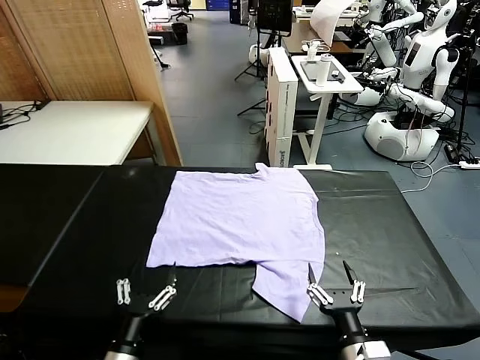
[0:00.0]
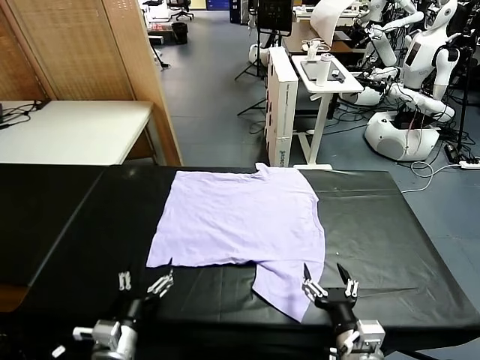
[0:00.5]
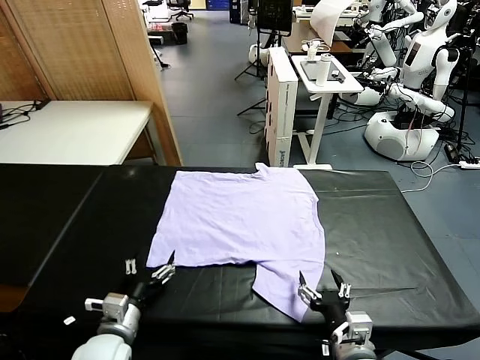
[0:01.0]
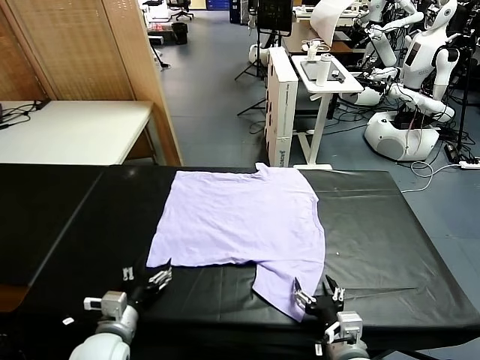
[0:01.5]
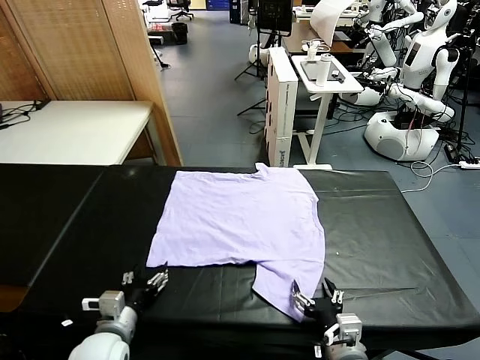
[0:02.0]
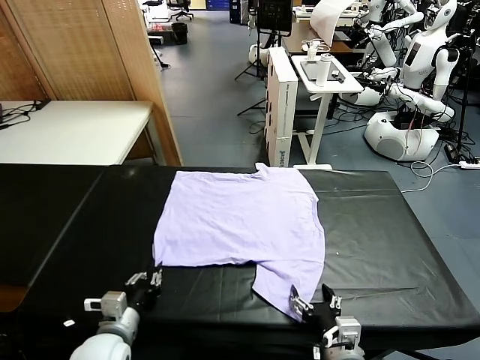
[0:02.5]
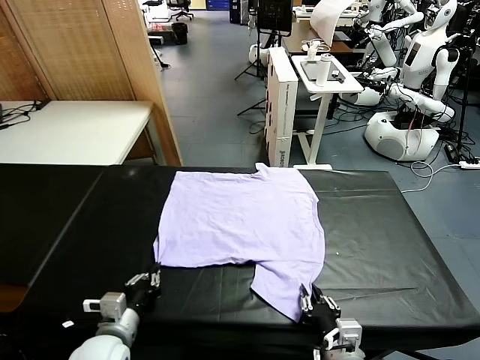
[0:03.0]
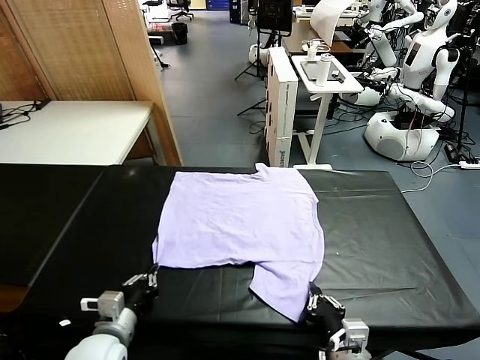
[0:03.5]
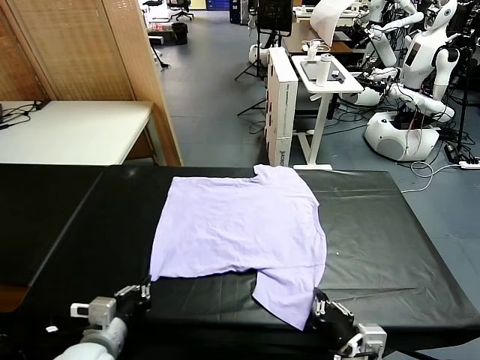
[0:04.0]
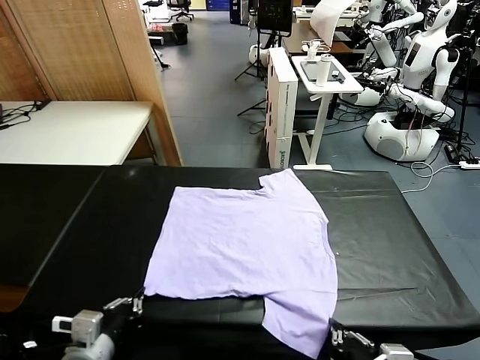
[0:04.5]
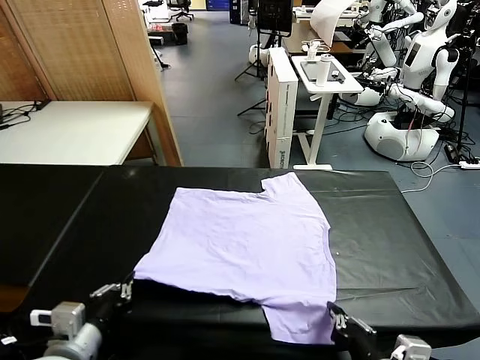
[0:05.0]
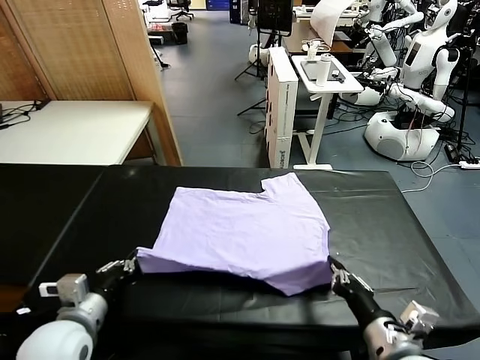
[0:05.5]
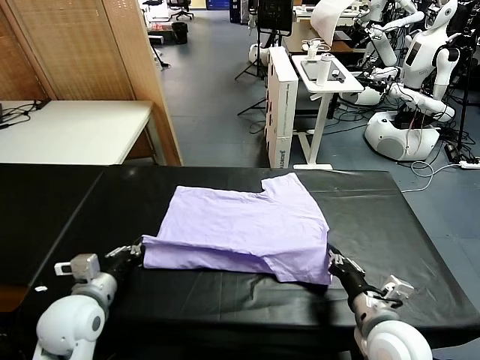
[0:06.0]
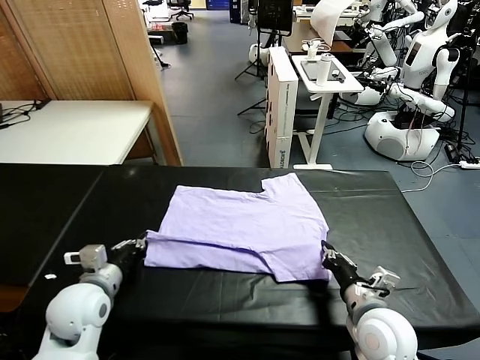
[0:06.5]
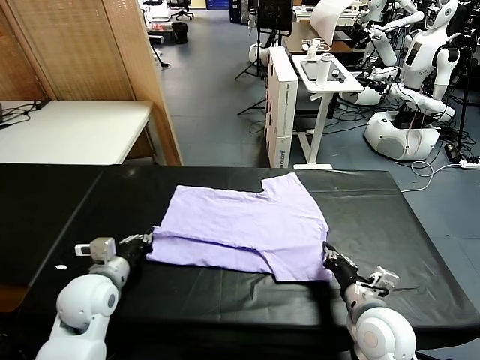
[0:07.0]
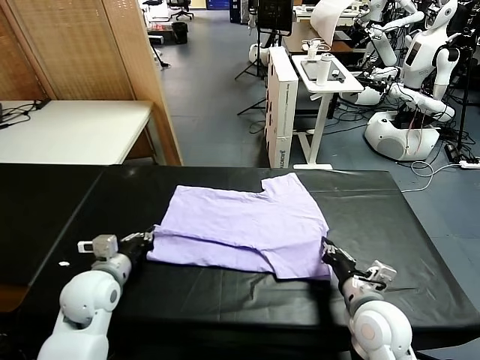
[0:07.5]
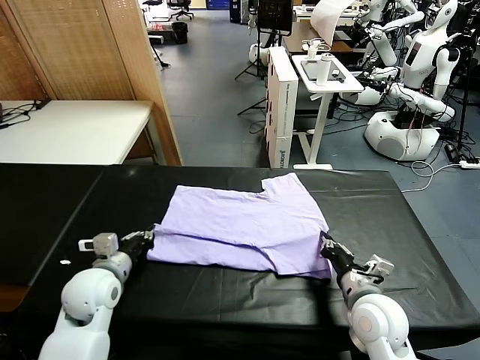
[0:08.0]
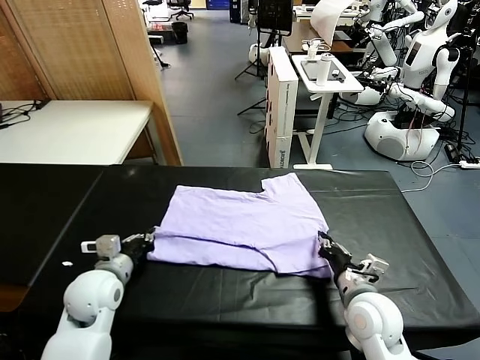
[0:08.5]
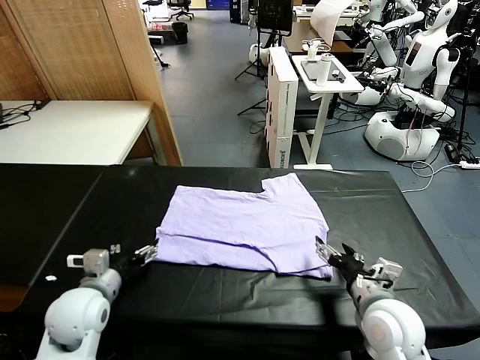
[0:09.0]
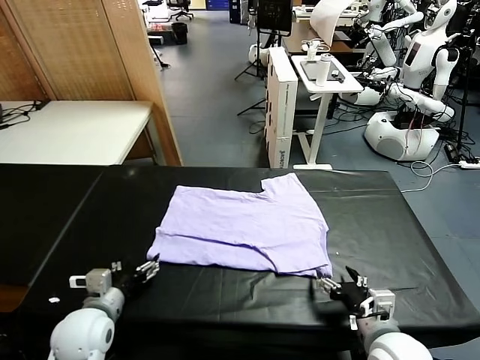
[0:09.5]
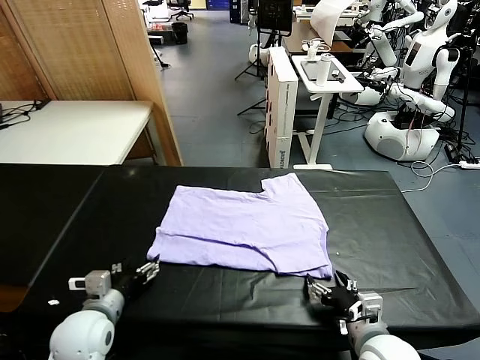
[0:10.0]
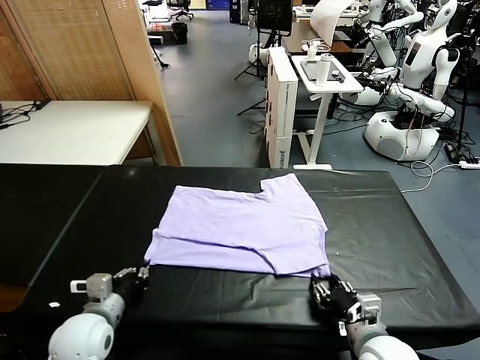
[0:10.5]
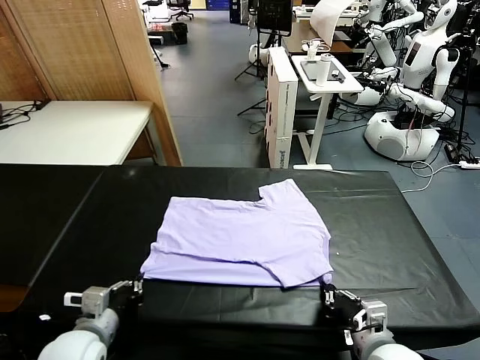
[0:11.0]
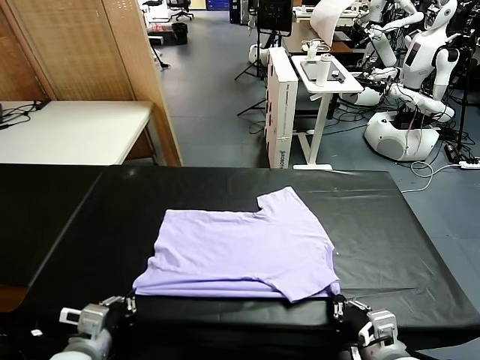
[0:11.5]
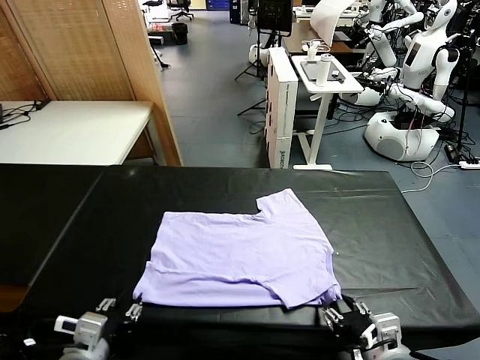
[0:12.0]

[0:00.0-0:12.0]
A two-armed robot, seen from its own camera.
Task of the whole recording: fold and organize the clothes.
Step, 0:00.0 to 0:04.0: use both grippers simultaneously to clamp the lower edge of the clothing fabric.
Step, 0:04.5 to 0:09.0: use both grippers to drag the lower edge of the fabric forward and fold it over the upper edge.
0:02.0 to 0:04.0: The right gripper goes some 5 cm upward, and closes, while the left gripper changes place by roughly 5 cm, and closes up.
0:04.0 to 0:06.0: The left gripper is displaced forward by approximately 10 cm; the right gripper travels forward by about 10 cm.
0:06.0 to 0:08.0: The left gripper shifts about 5 cm forward.
0:08.0 to 0:10.0: The grippers both shift backward by some 5 cm. The right gripper opens. Meanwhile the left gripper opens its fingers.
0:10.0 to 0:12.0: The right gripper travels upward and backward by roughly 10 cm, and closes, then opens again, while the left gripper travels backward by approximately 10 cm, and closes, then reopens.

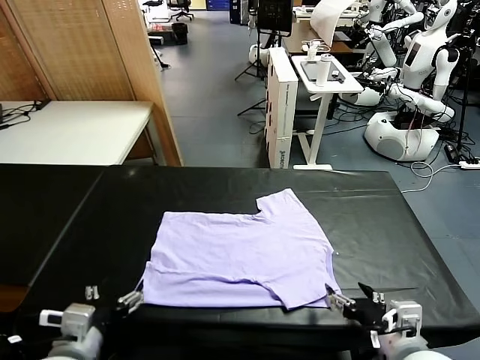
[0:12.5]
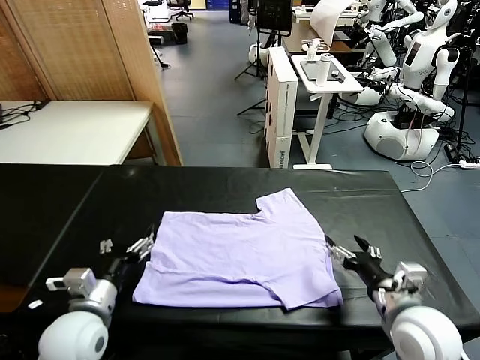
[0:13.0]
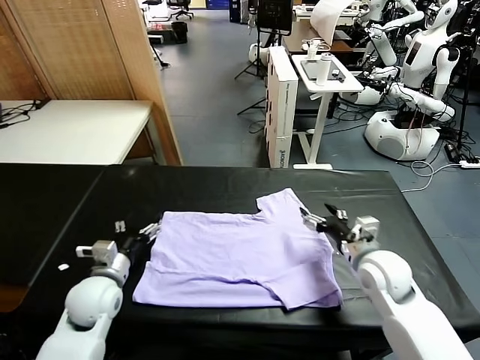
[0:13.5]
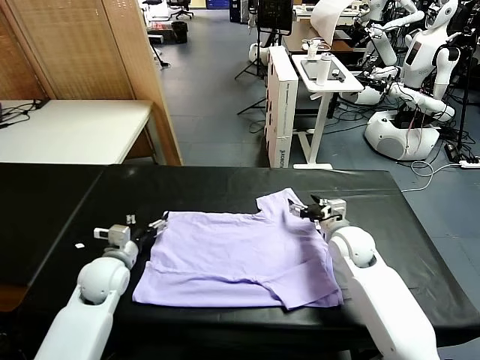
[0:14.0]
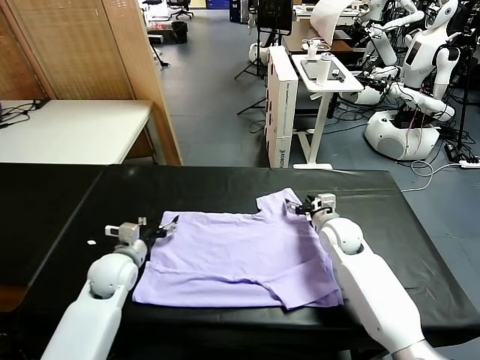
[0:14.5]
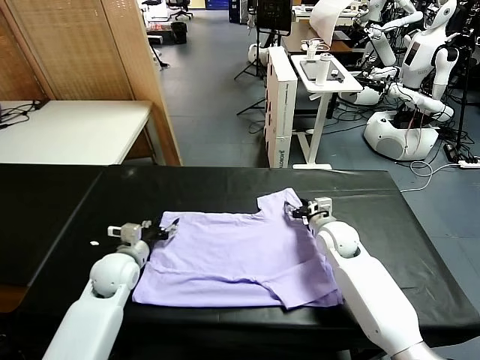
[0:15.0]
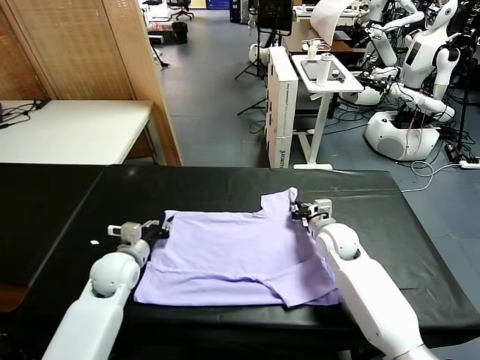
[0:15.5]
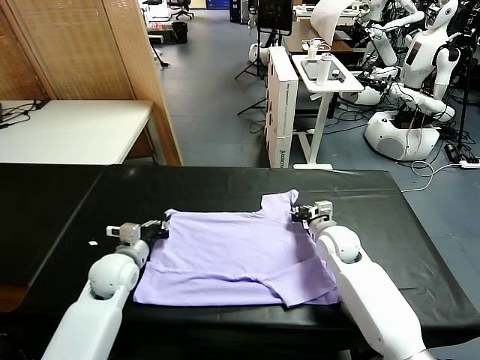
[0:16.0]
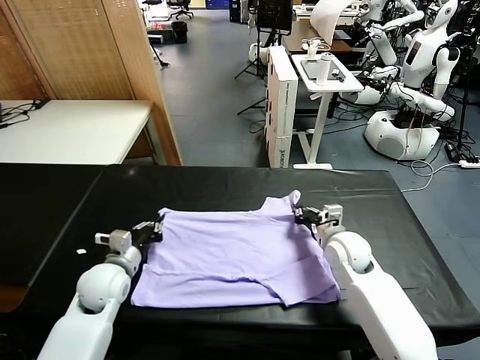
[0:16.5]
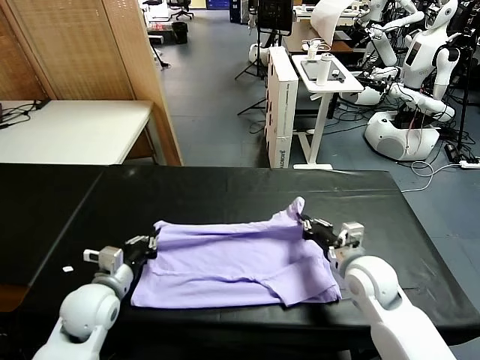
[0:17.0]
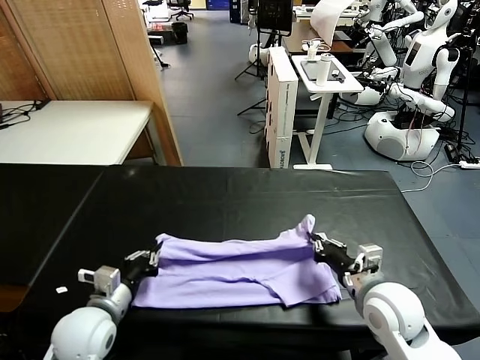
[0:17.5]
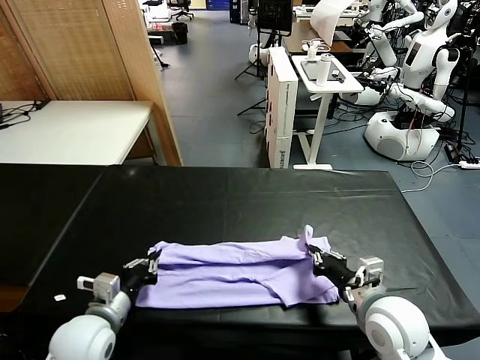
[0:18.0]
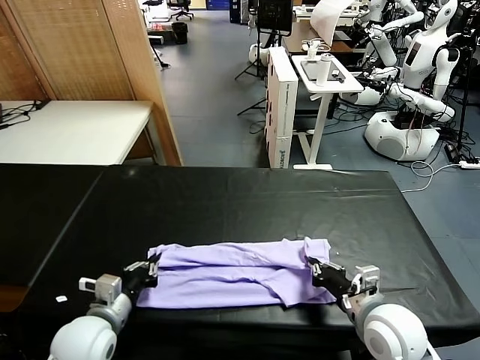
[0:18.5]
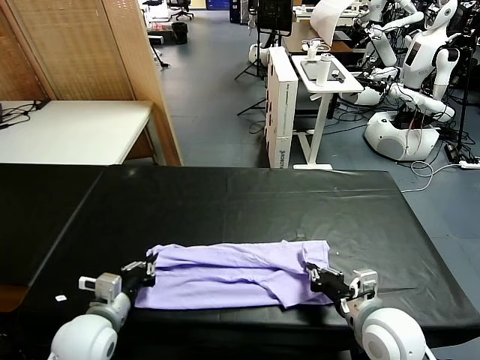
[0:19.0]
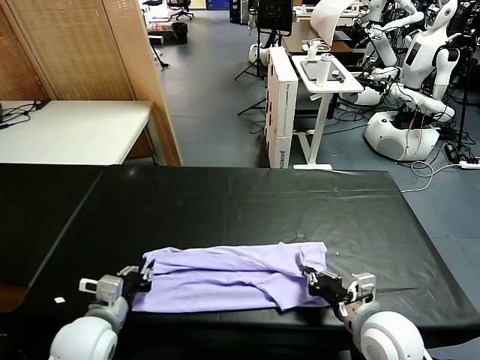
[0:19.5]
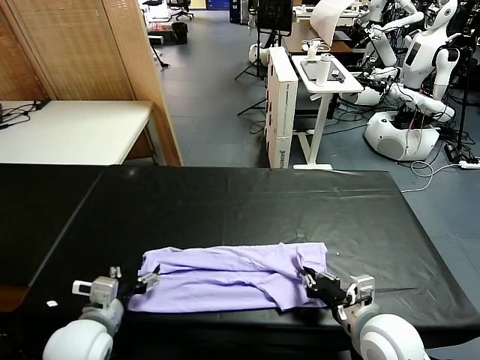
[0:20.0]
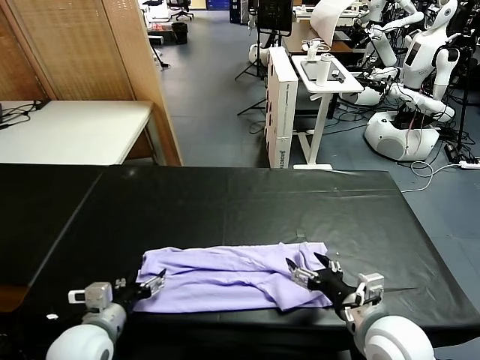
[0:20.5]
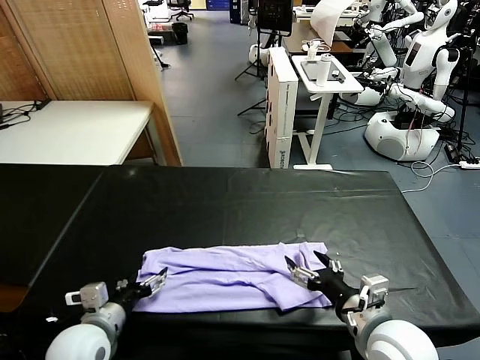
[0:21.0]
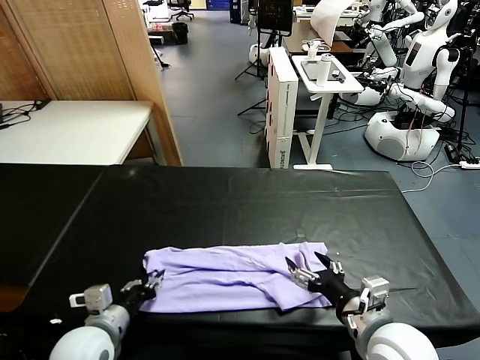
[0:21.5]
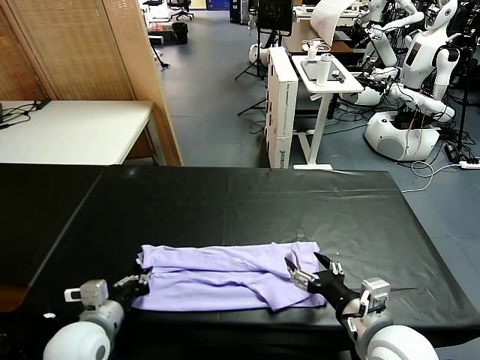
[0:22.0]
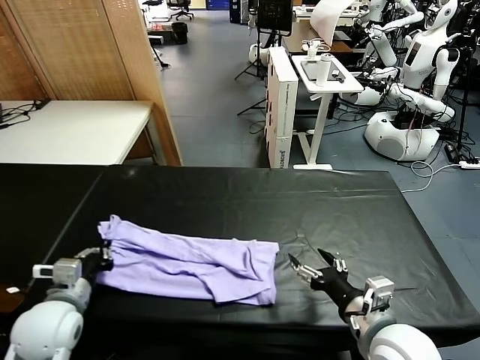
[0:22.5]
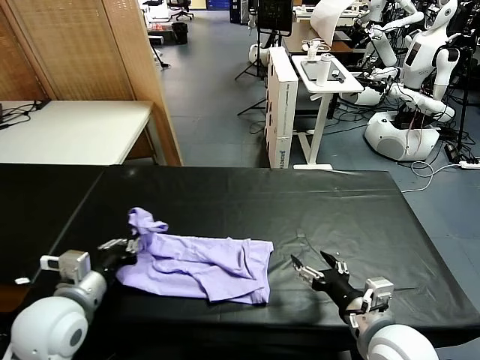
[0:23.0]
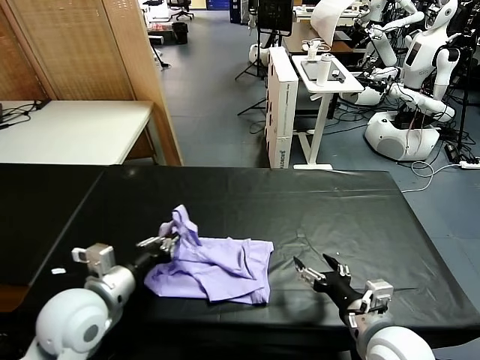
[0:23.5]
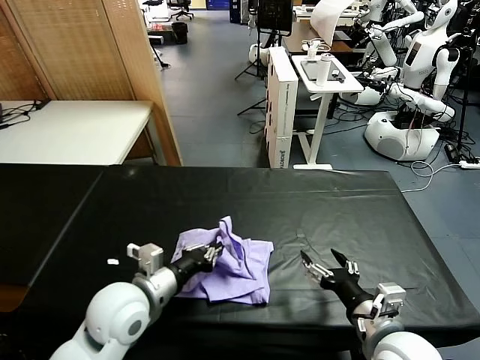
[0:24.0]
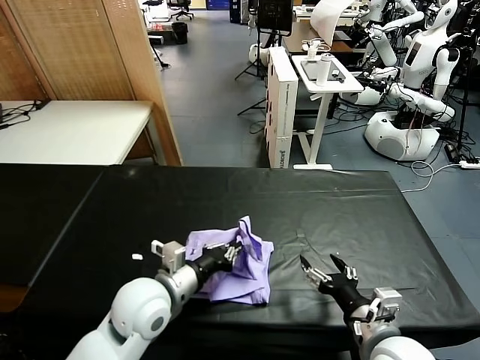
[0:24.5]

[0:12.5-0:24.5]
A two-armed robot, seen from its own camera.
Task of the whole recording: fold and organize the clothes.
Step, 0:12.5 to 0:15.5: use both grippers simultaneously to clamp the upper edge of the clothing fabric.
Step, 0:16.0 to 0:20.0: use both grippers to drag the upper edge of the fabric backward and fold it over the lower edge.
Step, 0:20.5 to 0:21.5: use the left gripper to clamp the left edge of the fabric.
0:12.5 to 0:14.5: The right gripper goes some 30 cm forward, while the left gripper shifts roughly 25 cm forward and downward.
0:14.5 to 0:16.5: The left gripper closes up, while the right gripper travels backward by roughly 5 cm, and closes.
0:16.5 to 0:18.5: Both grippers travel together backward, about 15 cm.
0:18.5 to 0:20.5: The right gripper opens. The left gripper opens up.
0:20.5 to 0:22.5: The left gripper travels to the left by roughly 5 cm, and closes.
0:22.5 to 0:24.5: The left gripper heads to the right, covering approximately 15 cm.

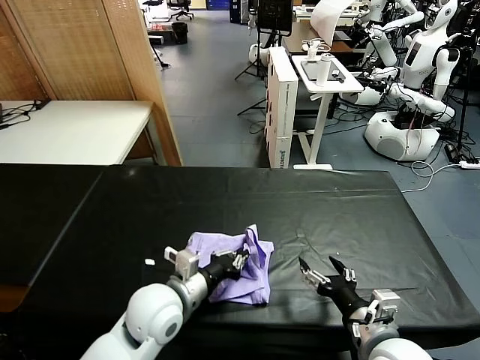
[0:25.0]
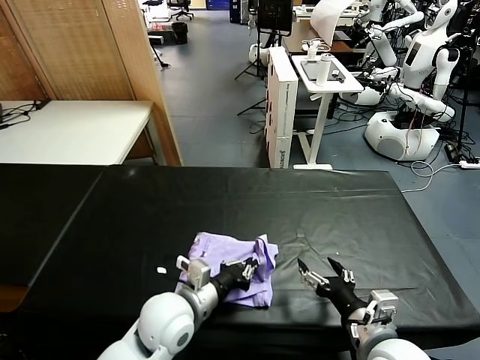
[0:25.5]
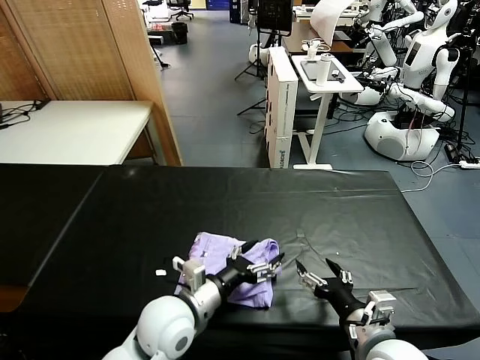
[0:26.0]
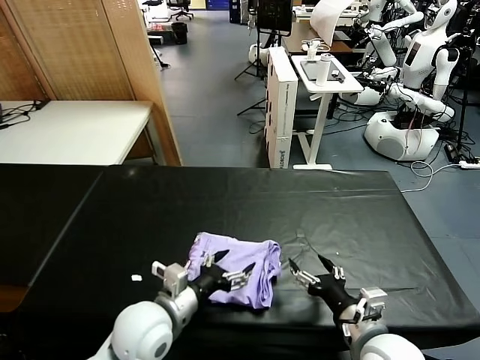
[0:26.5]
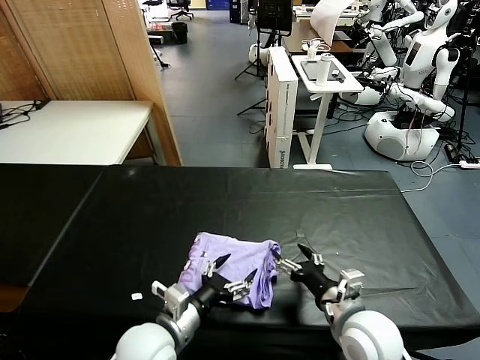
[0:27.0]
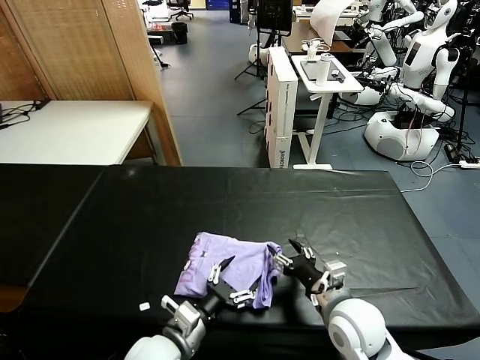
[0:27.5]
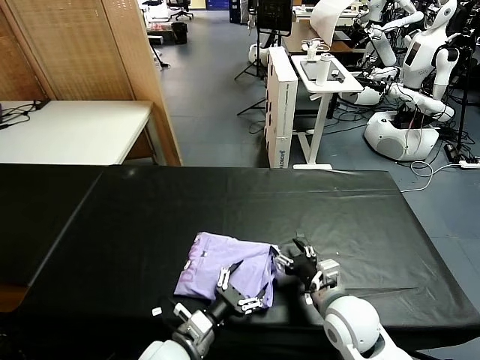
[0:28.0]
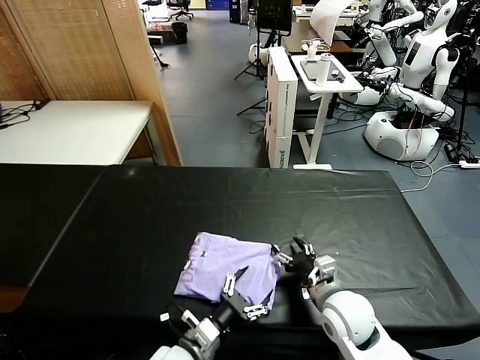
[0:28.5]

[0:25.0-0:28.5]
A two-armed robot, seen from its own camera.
Task of the whole recording: fold and organize the clothes.
0:25.0 to 0:27.0: The left gripper is displaced backward by about 5 cm, and opens its fingers, while the right gripper goes some 5 cm forward.
0:27.0 to 0:28.5: The left gripper shifts some 5 cm downward. The right gripper changes place by roughly 5 cm.
